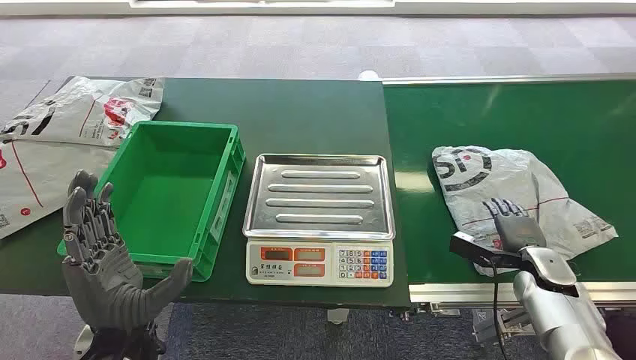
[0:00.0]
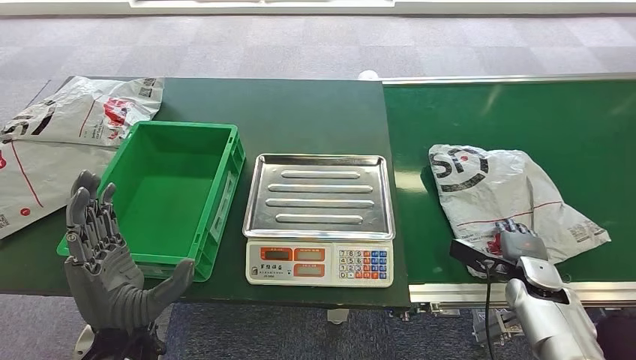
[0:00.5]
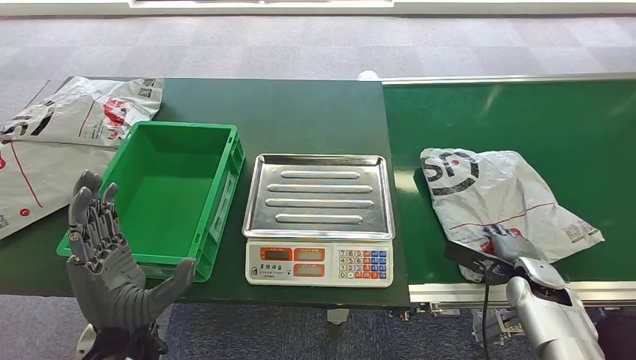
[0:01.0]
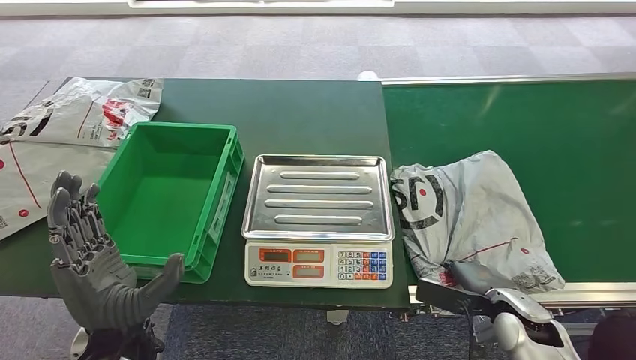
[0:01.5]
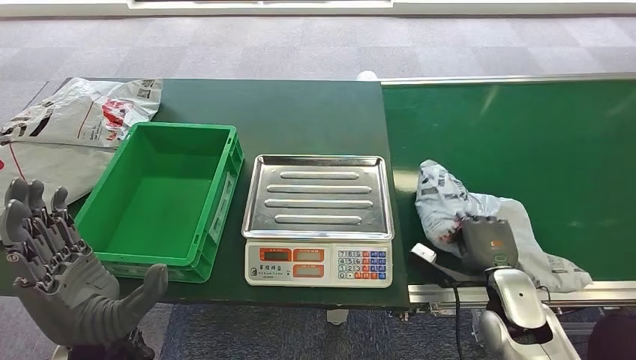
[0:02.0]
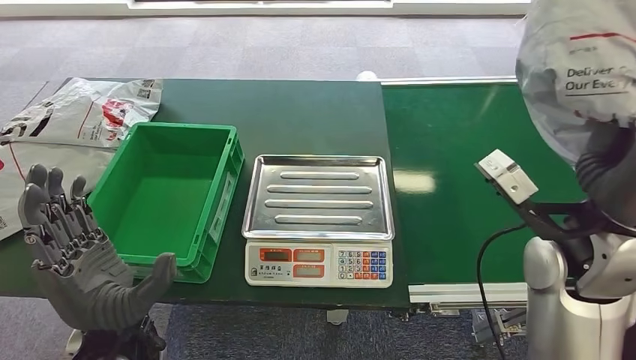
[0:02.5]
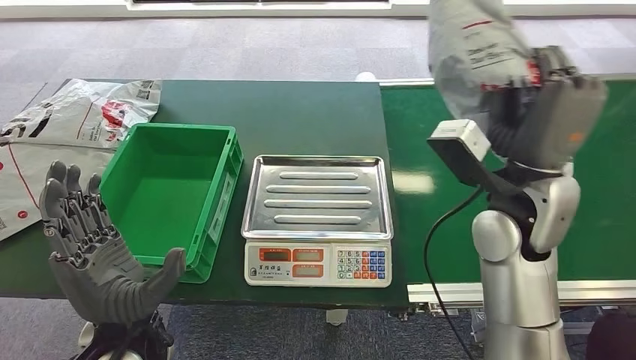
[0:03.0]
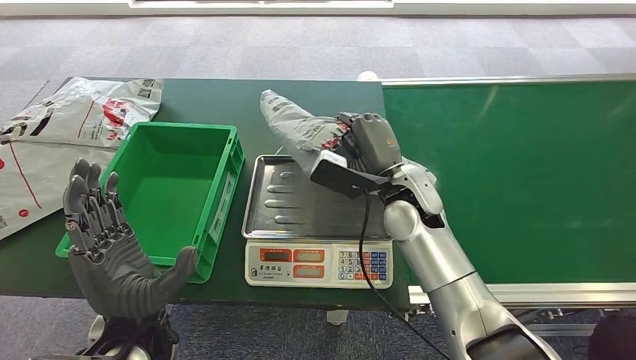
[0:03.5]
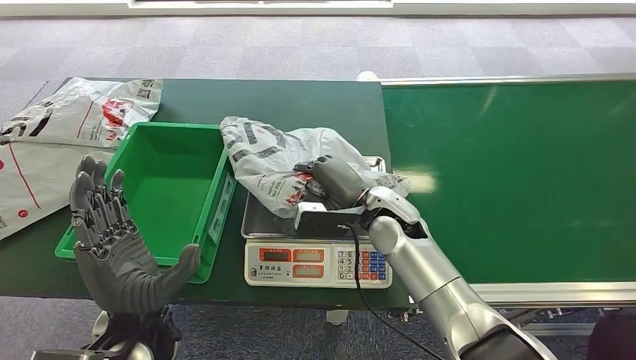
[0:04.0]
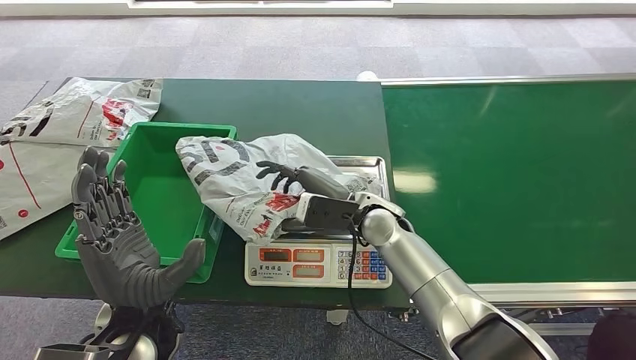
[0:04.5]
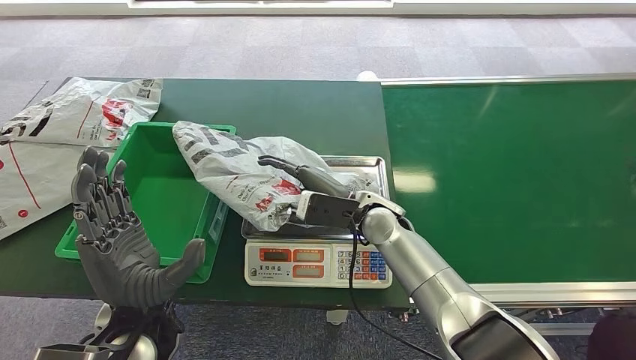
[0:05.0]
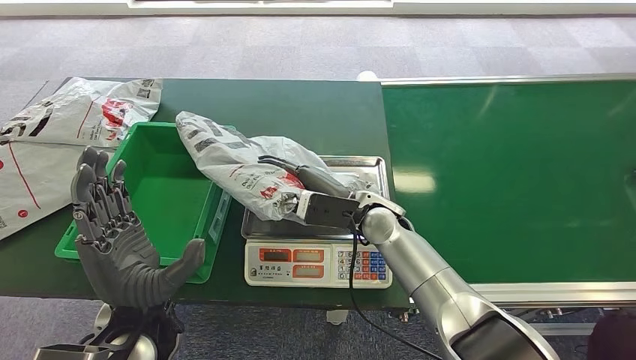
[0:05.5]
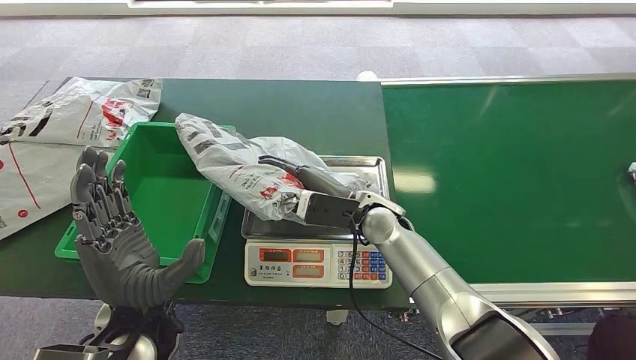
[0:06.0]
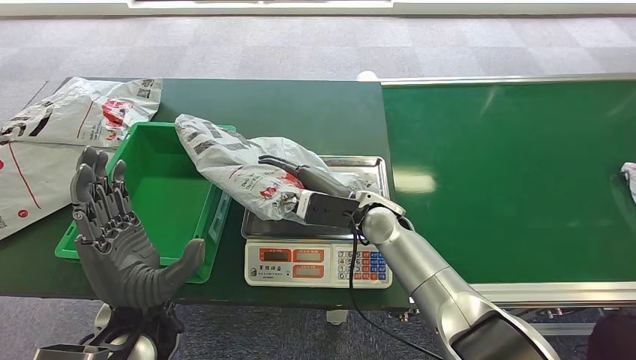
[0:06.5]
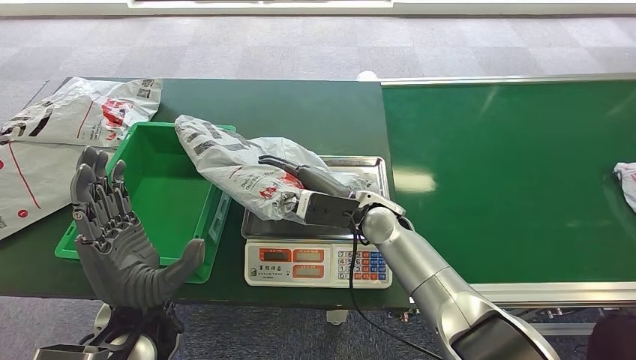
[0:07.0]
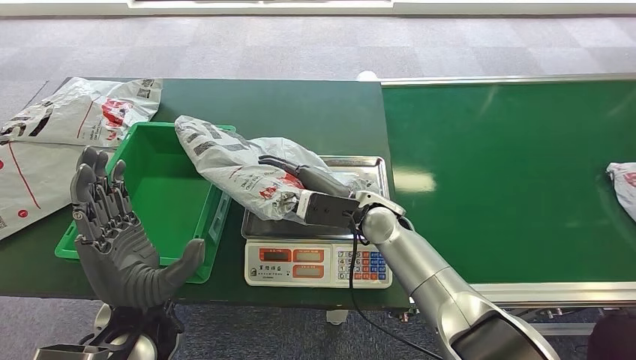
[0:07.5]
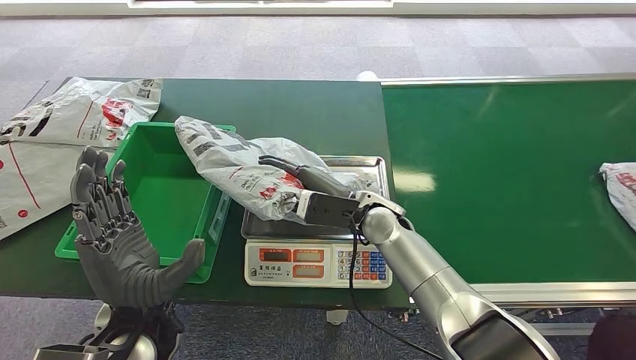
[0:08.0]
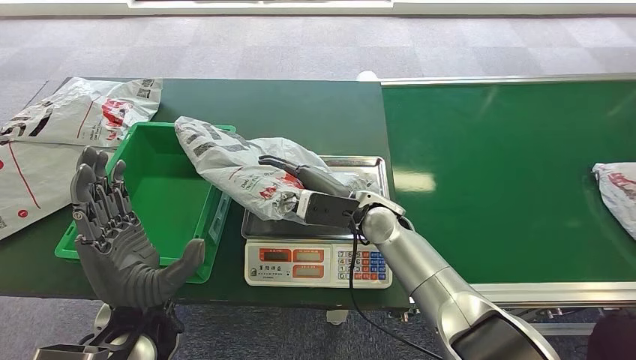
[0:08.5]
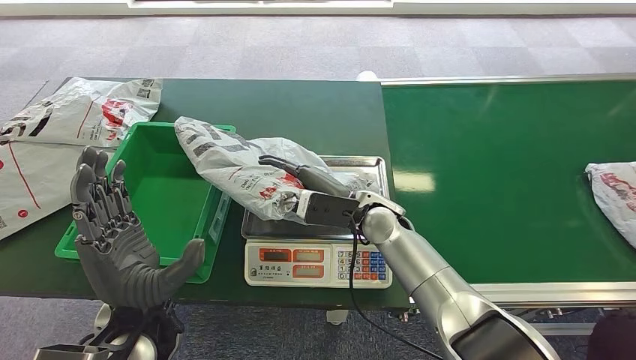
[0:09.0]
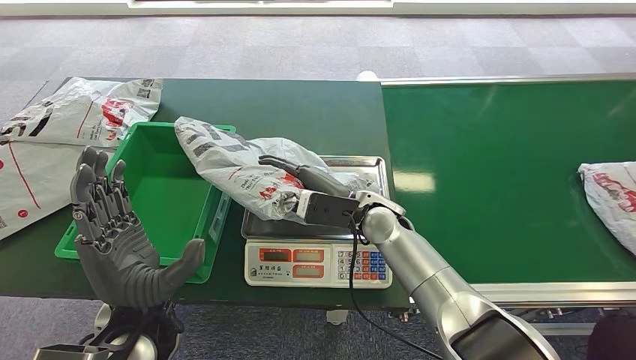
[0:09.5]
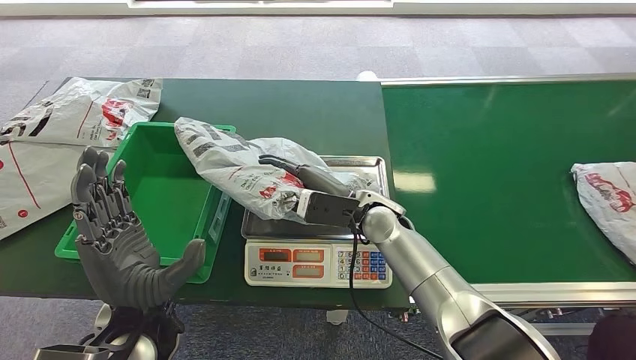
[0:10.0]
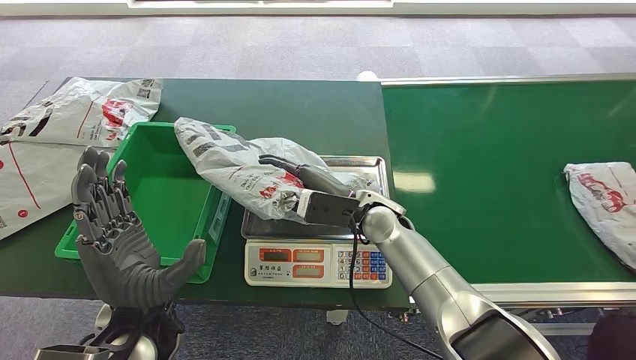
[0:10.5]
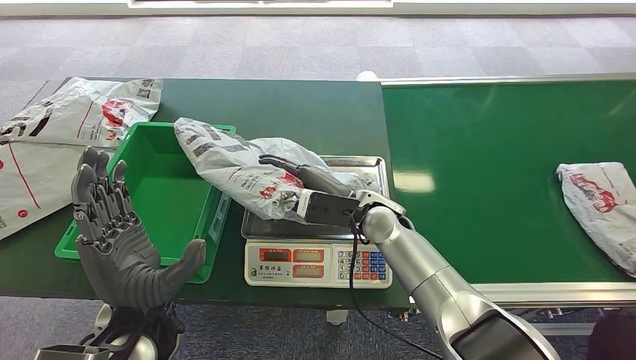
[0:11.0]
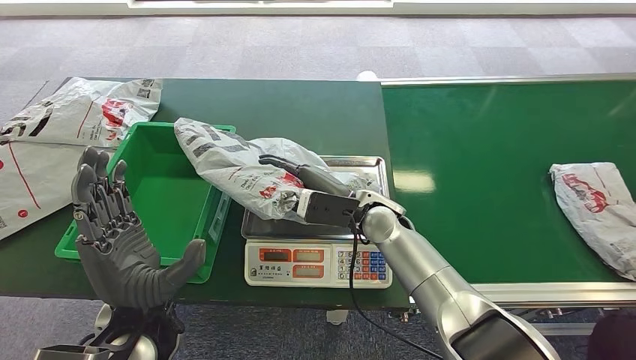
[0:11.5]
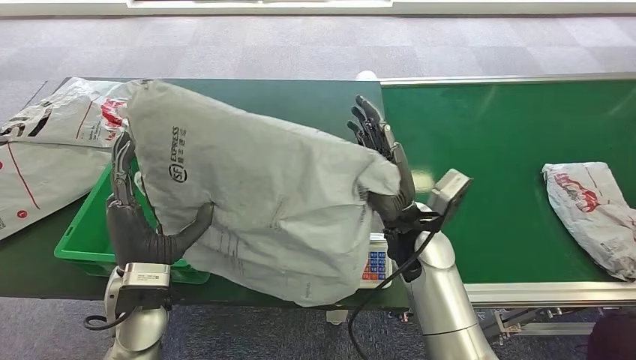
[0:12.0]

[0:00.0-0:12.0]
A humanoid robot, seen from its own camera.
Step, 0:00.0 to 0:02.0: Pick up the package from the conveyor belt.
Step, 0:03.0 to 0:12.0: Place the package onto the inbound machine.
0:06.0 to 0:10.0: Neither hand changes place.

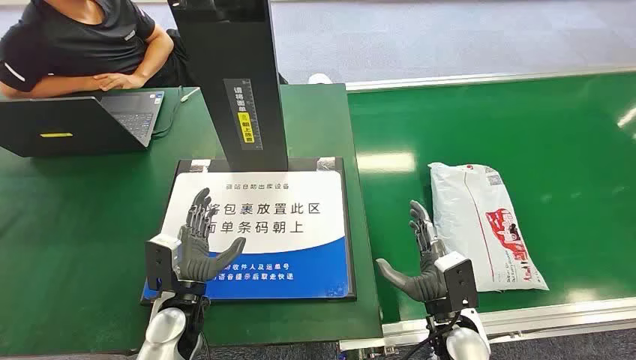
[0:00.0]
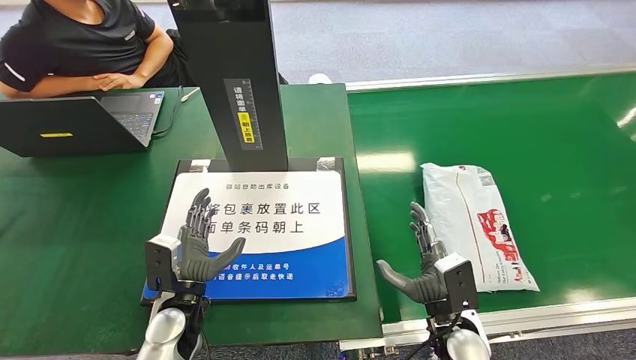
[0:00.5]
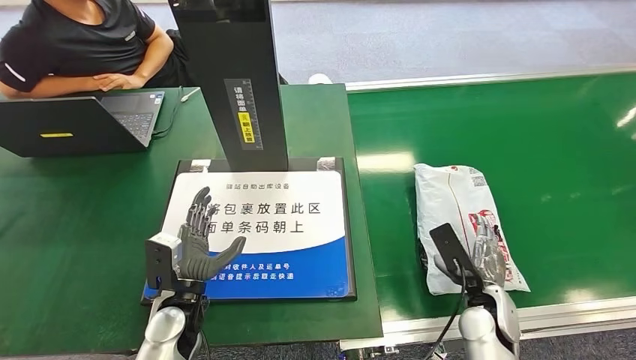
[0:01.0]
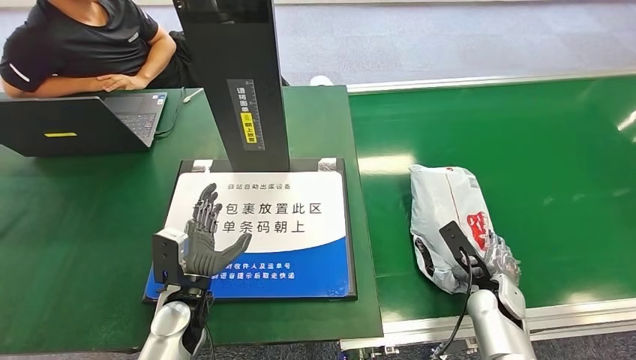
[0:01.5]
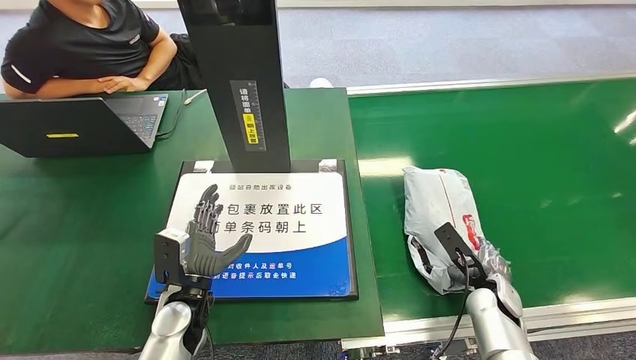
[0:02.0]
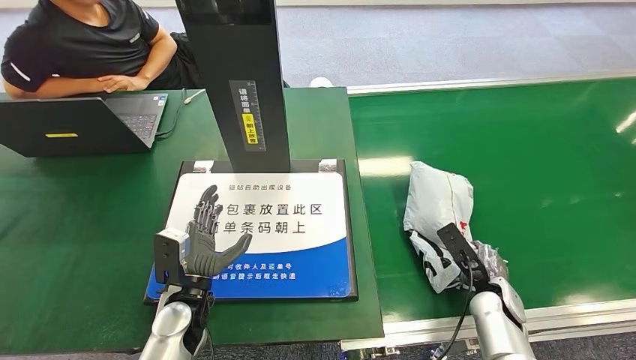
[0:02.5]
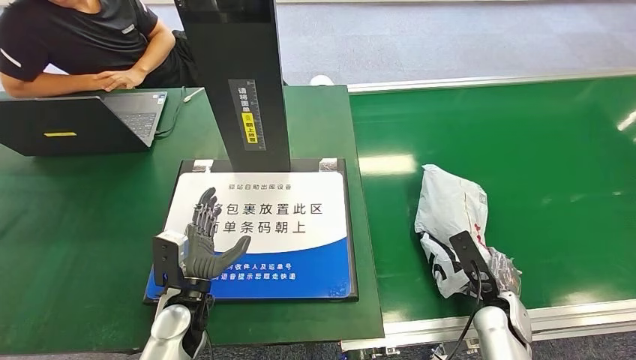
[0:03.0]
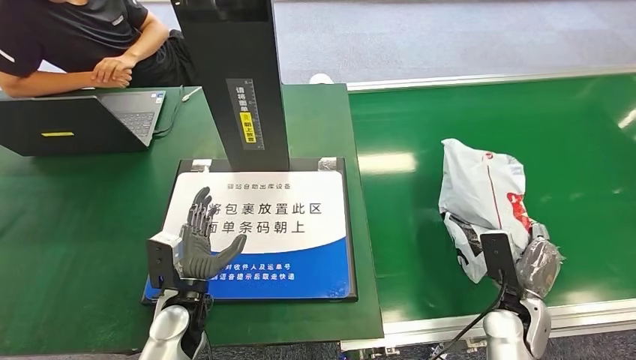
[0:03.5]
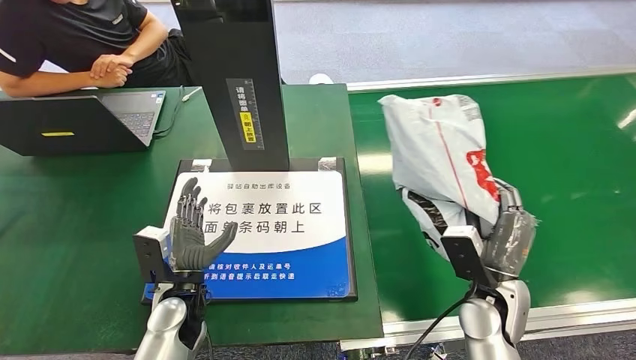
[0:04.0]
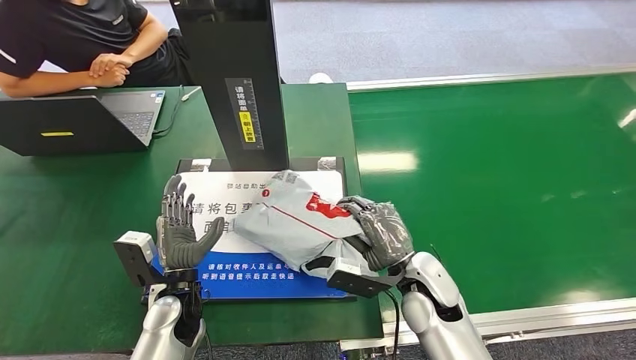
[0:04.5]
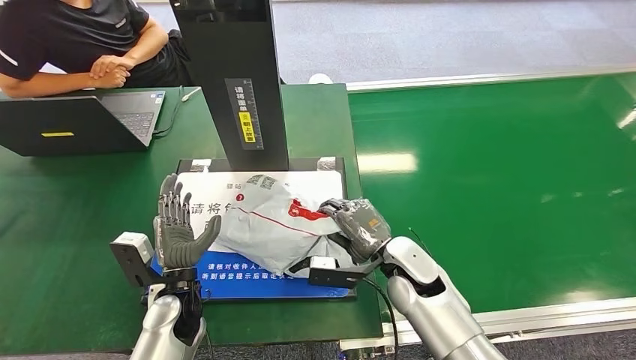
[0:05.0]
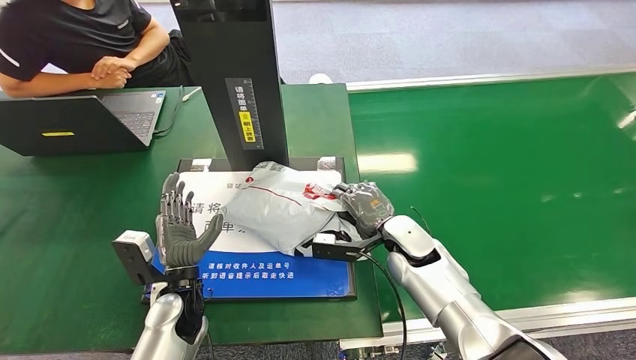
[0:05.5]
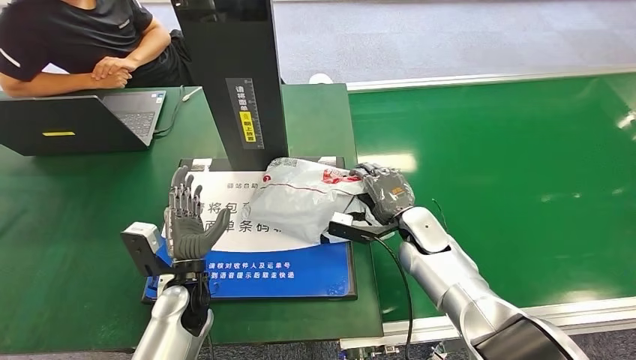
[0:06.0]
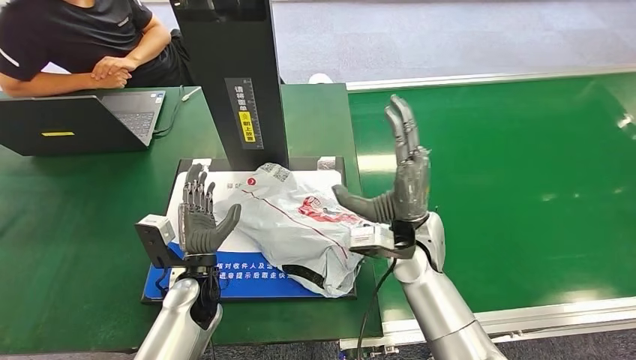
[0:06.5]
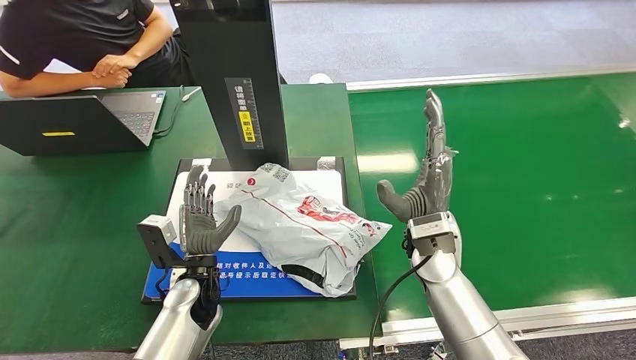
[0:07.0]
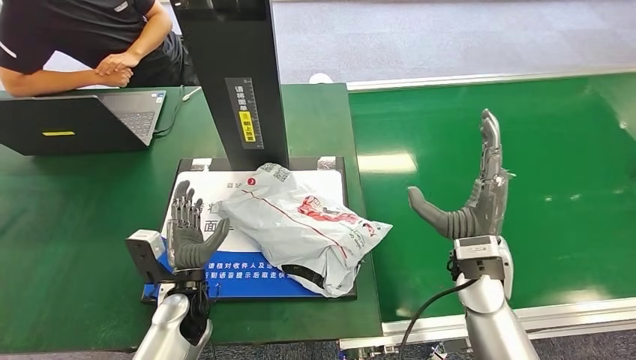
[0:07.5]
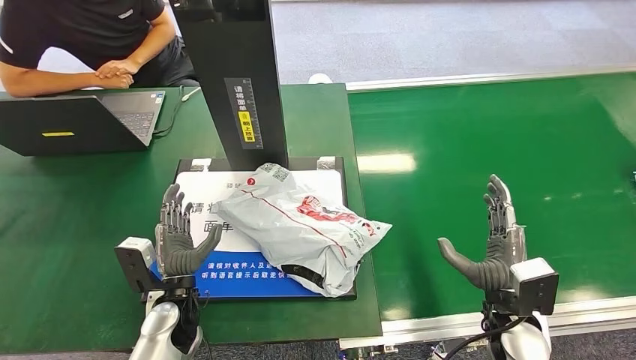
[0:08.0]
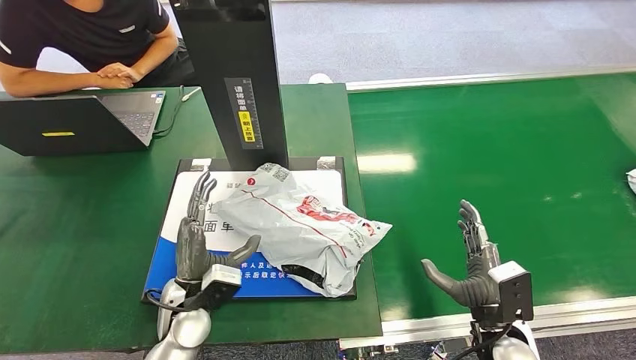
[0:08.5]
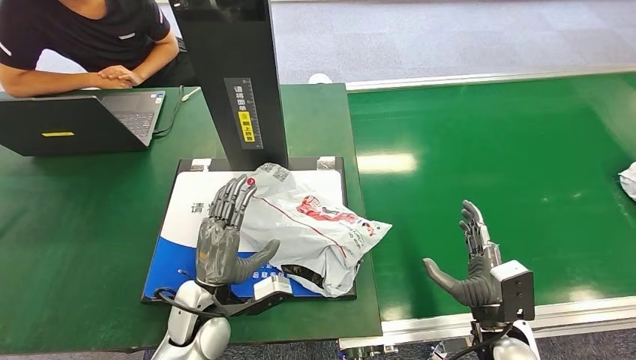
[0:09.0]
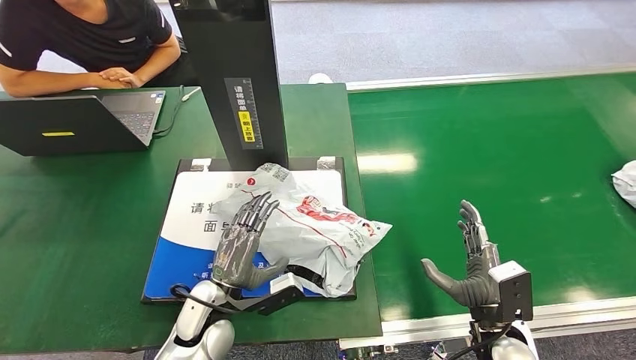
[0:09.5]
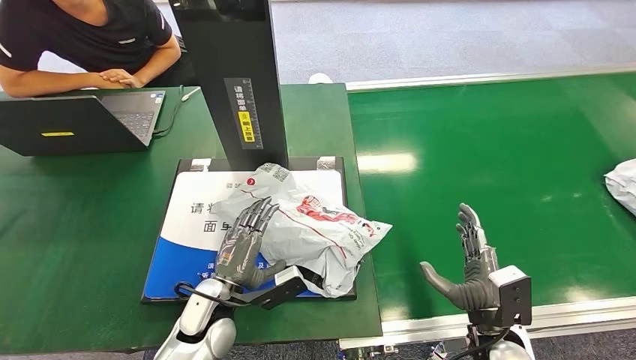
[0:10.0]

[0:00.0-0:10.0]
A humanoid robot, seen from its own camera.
Step, 0:00.0 to 0:03.5: Pick up the package from the conveyor belt.
Step, 0:04.0 to 0:07.5: Place the package onto the inbound machine.
0:08.0 to 0:10.0: The left hand heads to the right, covering about 5 cm.
